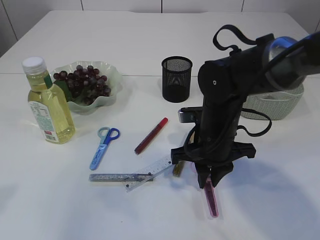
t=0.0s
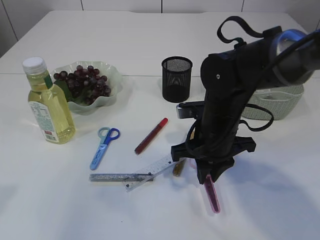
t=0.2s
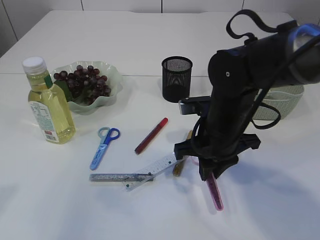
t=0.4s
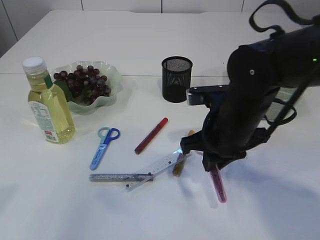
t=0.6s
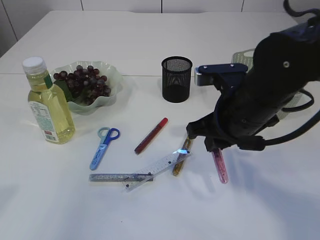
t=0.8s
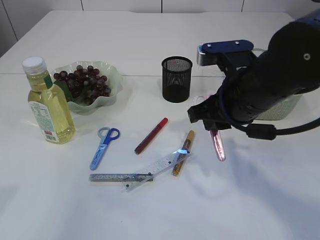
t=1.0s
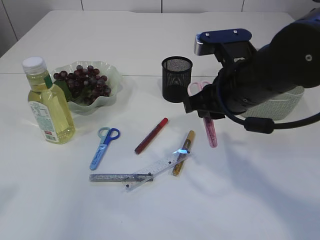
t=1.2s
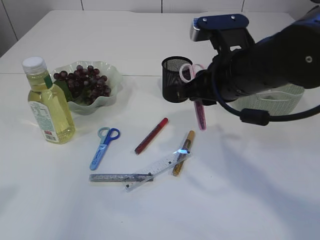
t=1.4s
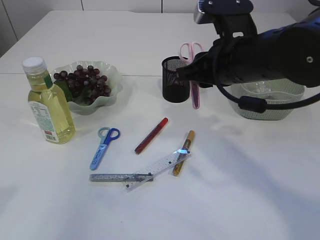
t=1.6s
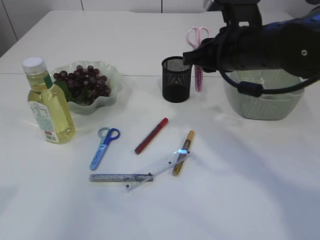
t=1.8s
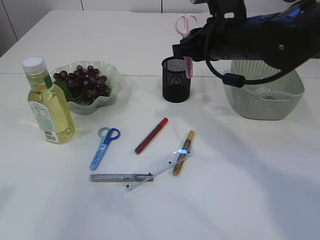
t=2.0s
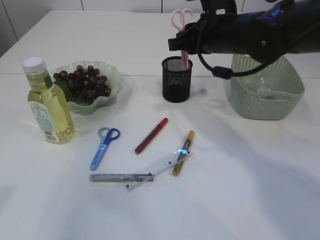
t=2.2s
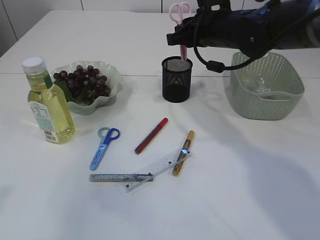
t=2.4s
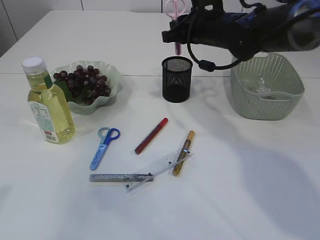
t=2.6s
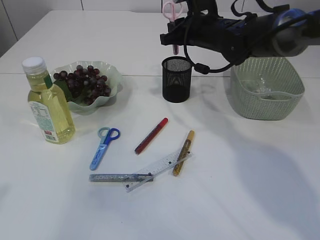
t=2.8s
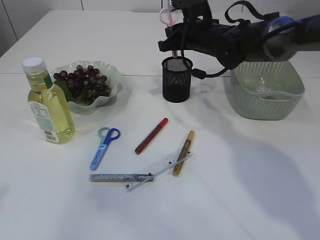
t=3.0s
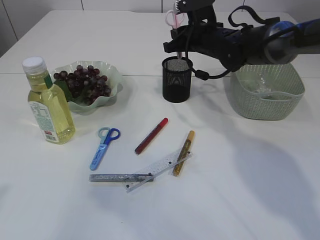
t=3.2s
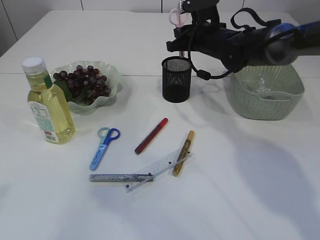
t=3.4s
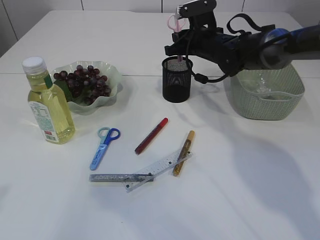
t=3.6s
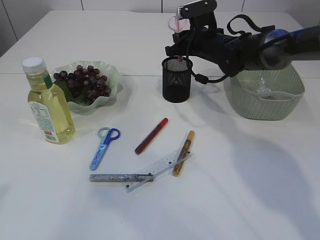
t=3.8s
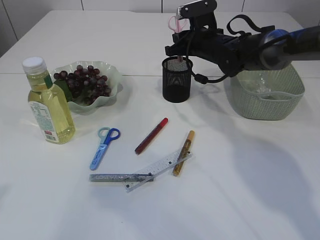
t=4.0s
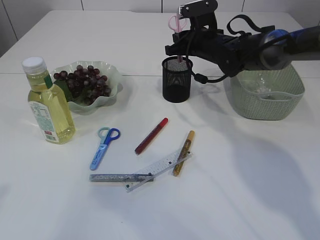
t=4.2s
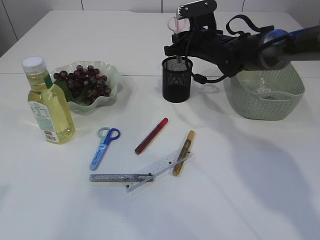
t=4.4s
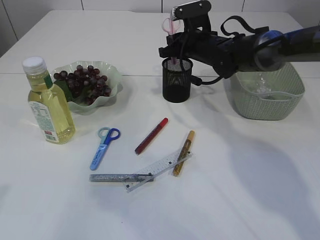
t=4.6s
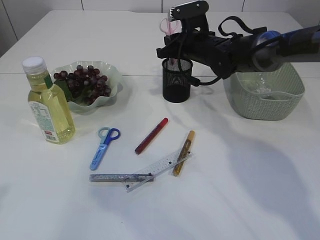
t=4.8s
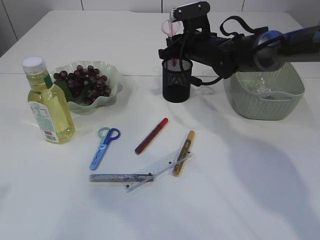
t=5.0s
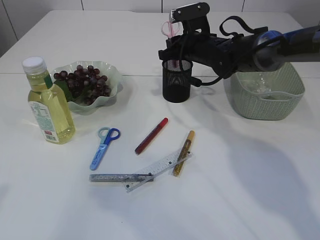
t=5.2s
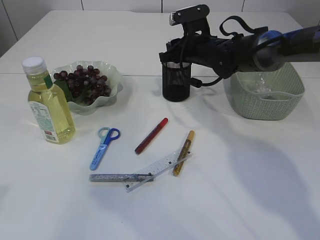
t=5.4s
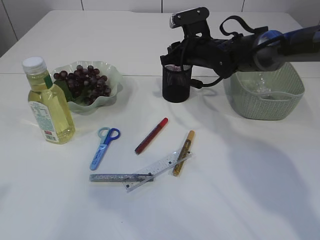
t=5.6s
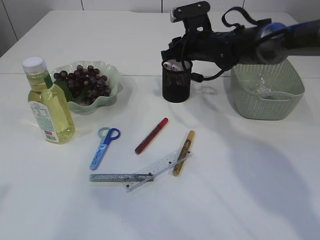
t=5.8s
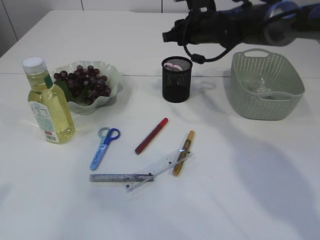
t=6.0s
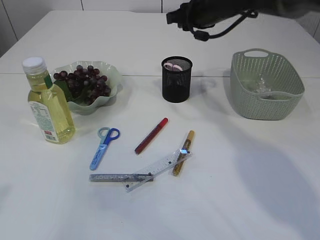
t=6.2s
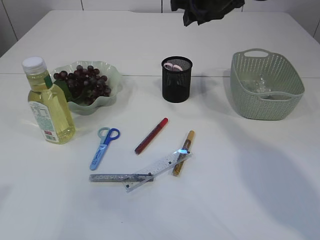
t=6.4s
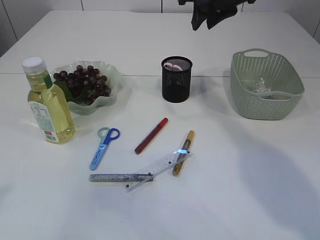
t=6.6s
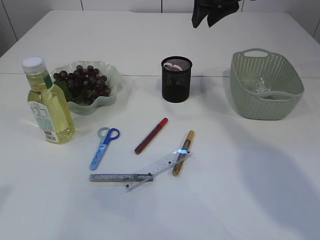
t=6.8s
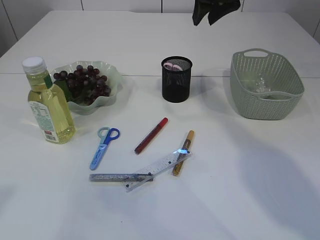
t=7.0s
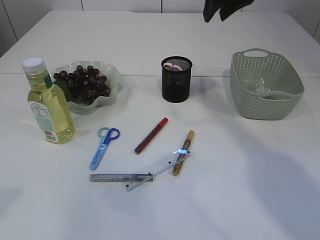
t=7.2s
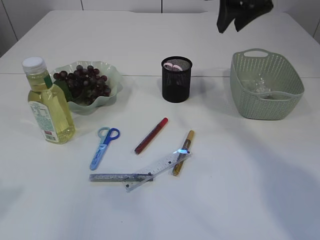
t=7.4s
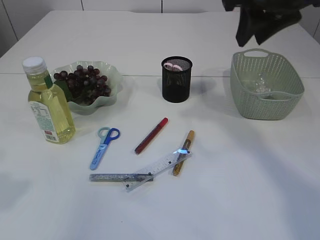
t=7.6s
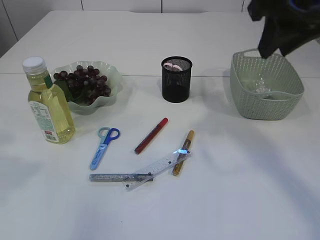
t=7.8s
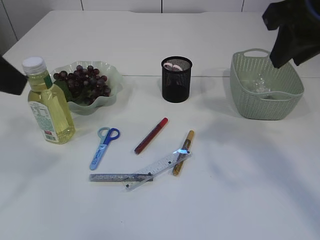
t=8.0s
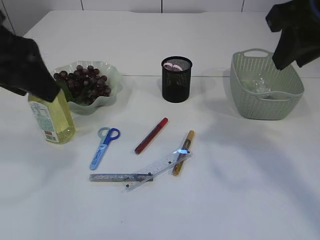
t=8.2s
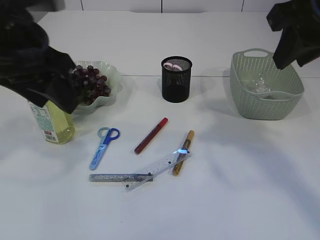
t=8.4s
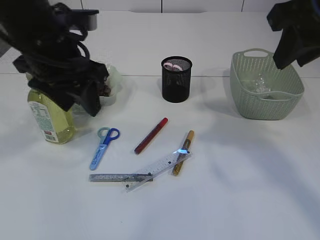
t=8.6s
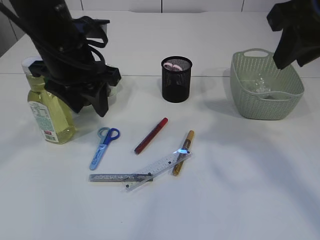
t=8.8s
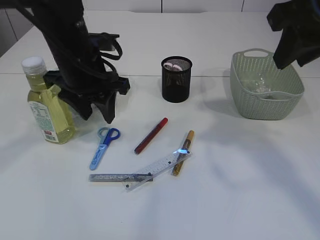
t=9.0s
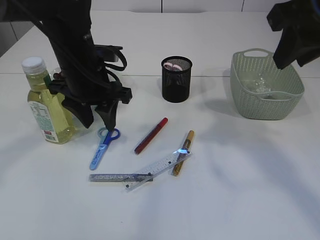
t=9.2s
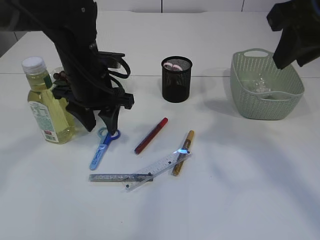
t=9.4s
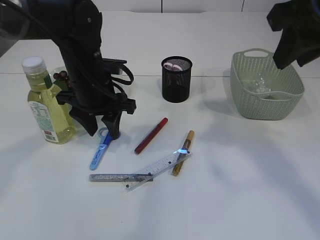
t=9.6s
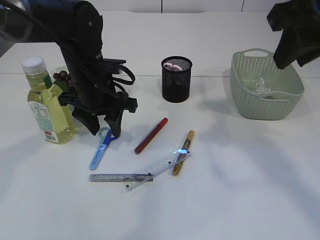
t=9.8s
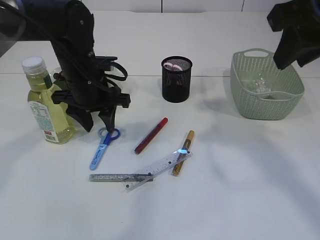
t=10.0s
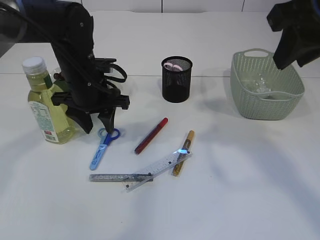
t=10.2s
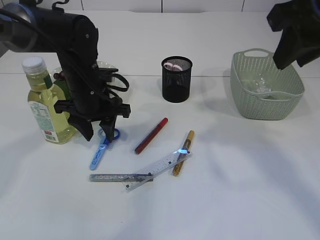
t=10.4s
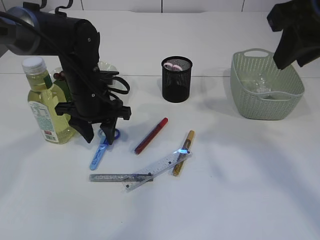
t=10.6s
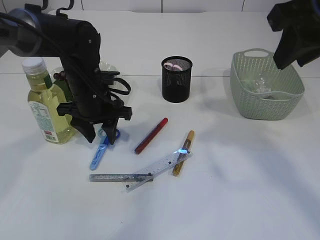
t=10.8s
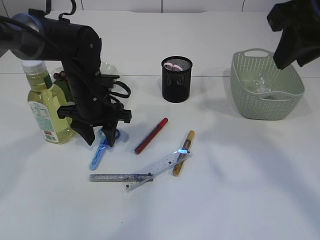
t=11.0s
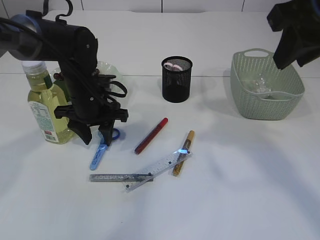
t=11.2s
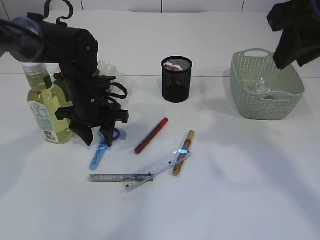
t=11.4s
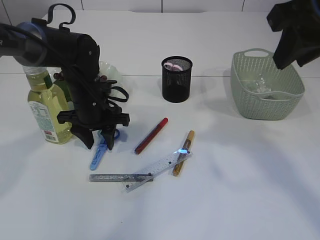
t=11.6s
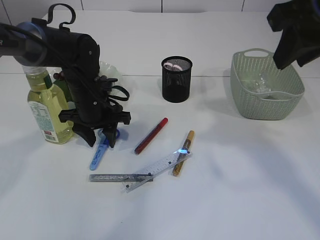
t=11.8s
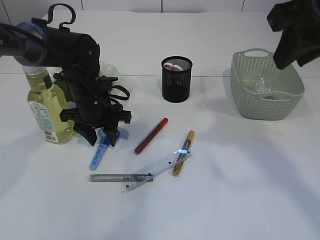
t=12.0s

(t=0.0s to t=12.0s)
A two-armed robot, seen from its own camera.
Step, t=1.0s - t=6.0s: Place the pink scissors into the pen holder.
t=0.0s - t=1.6s: The right gripper shifts roughly 10 cm upward.
t=1.6s - t=3.0s: The right gripper shifts approximately 15 cm forward.
t=3.0s - t=6.0s: The grippers stay close to where they were, moving slightly.
t=6.0s - t=7.6s: The right gripper travels backward and upward by approximately 20 cm.
t=7.6s - t=9.0s: The right gripper is displaced backward by roughly 10 cm; the left gripper shifts approximately 25 cm forward, to the right and downward.
t=9.0s - t=10.4s: The left gripper shifts some 10 cm downward.
t=10.4s - t=12.0s: The grippers make only small movements.

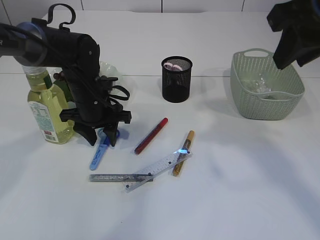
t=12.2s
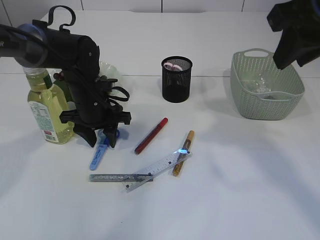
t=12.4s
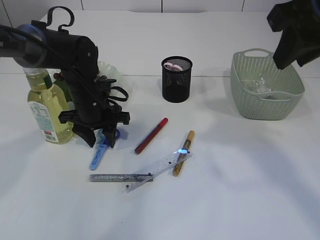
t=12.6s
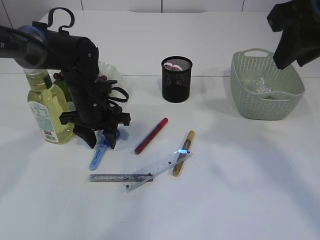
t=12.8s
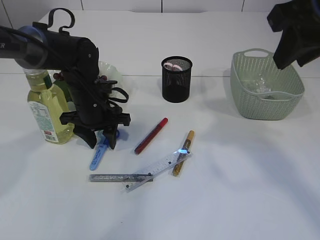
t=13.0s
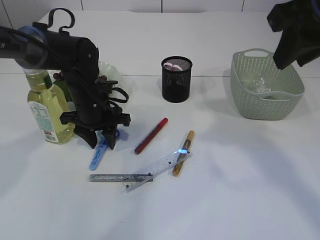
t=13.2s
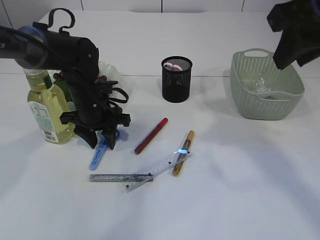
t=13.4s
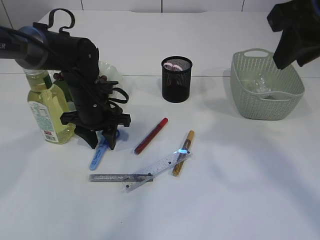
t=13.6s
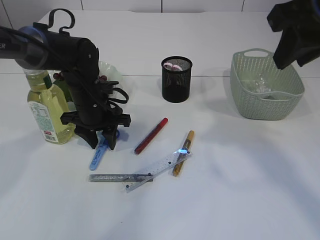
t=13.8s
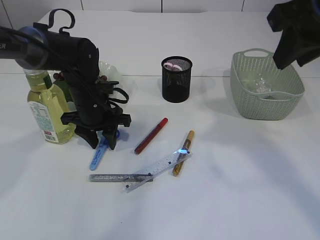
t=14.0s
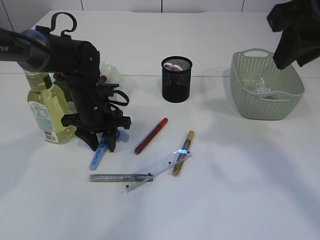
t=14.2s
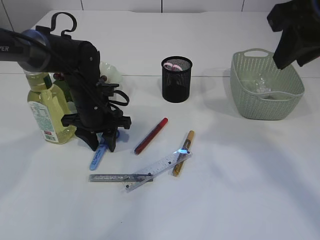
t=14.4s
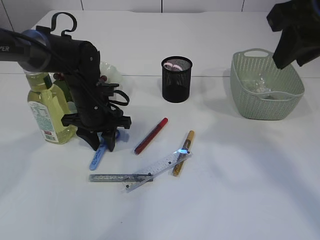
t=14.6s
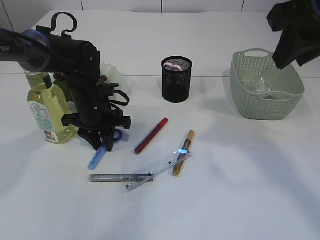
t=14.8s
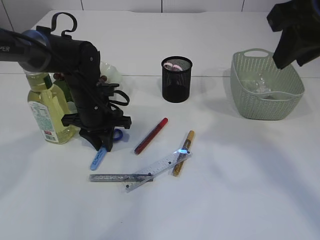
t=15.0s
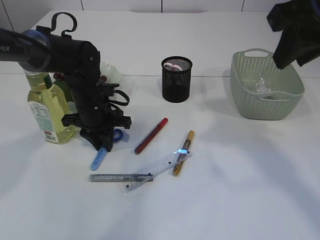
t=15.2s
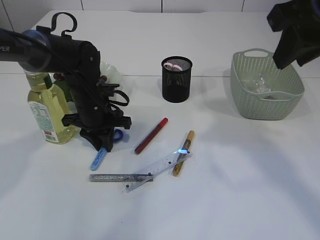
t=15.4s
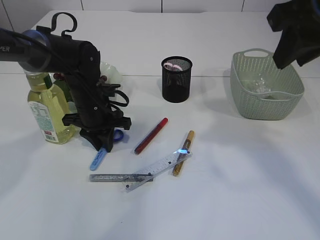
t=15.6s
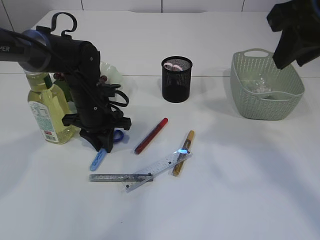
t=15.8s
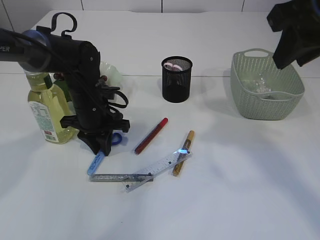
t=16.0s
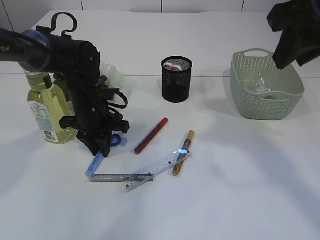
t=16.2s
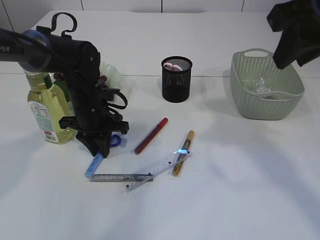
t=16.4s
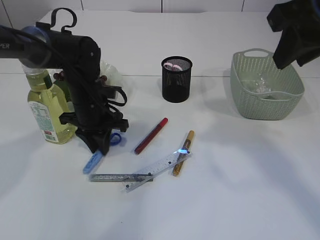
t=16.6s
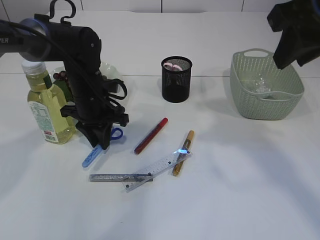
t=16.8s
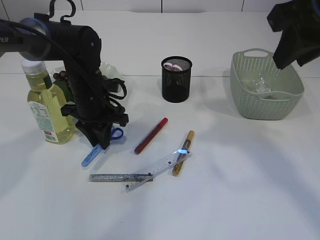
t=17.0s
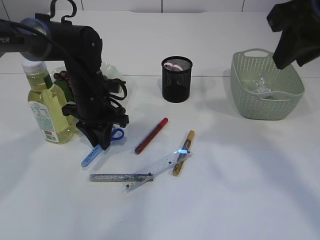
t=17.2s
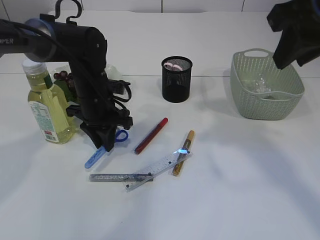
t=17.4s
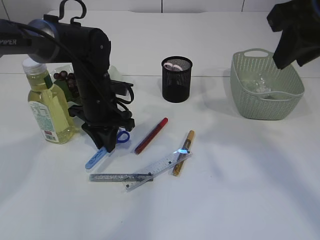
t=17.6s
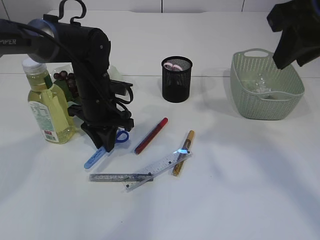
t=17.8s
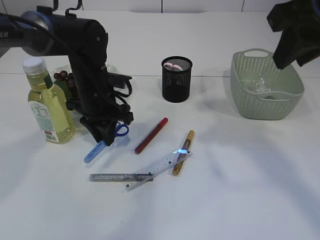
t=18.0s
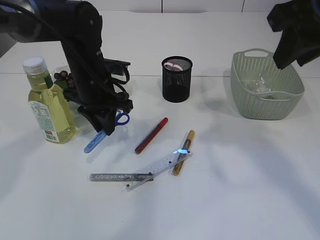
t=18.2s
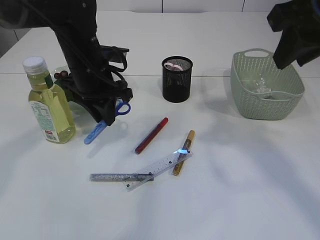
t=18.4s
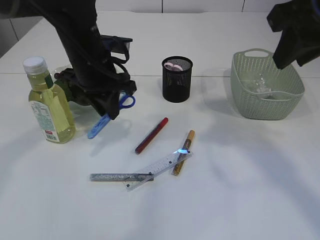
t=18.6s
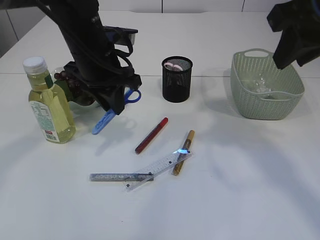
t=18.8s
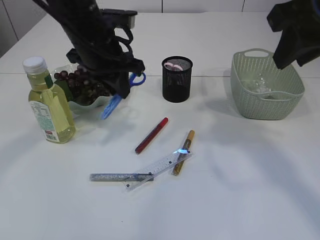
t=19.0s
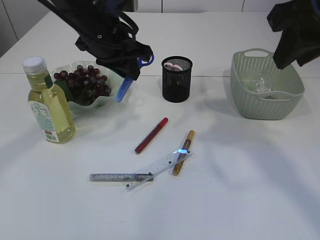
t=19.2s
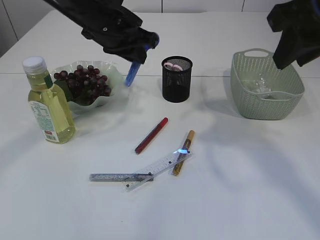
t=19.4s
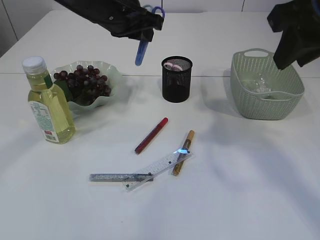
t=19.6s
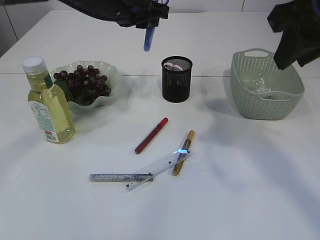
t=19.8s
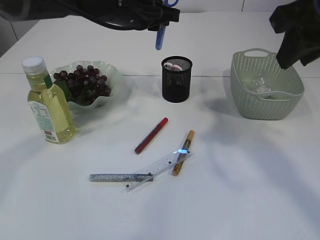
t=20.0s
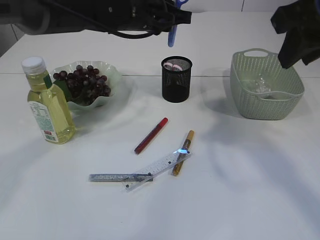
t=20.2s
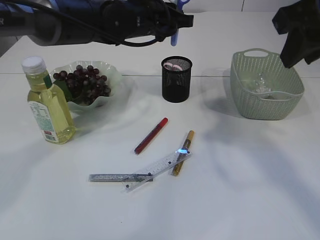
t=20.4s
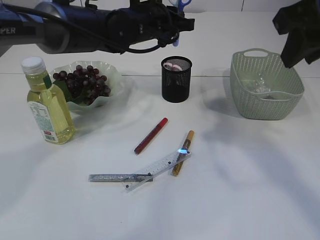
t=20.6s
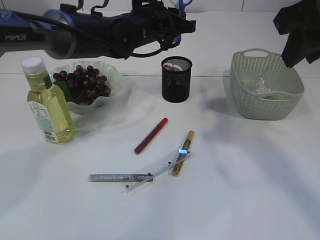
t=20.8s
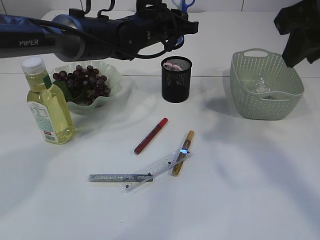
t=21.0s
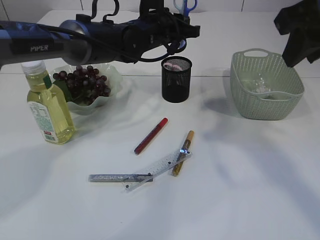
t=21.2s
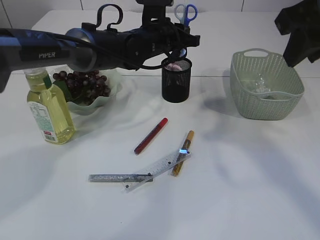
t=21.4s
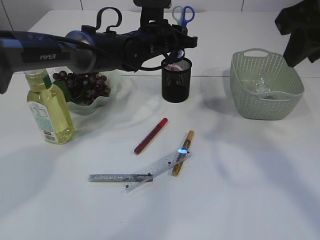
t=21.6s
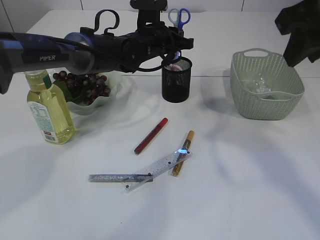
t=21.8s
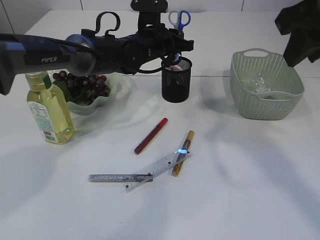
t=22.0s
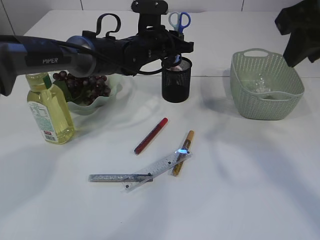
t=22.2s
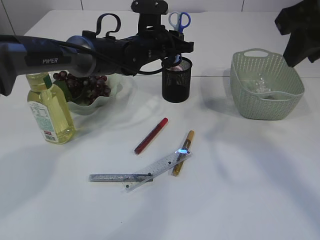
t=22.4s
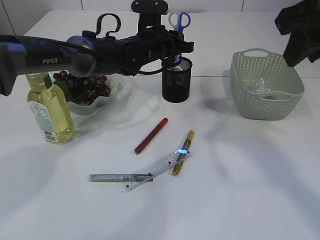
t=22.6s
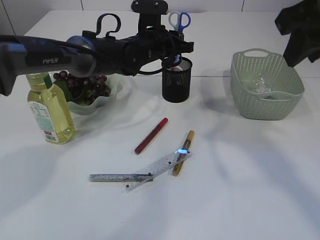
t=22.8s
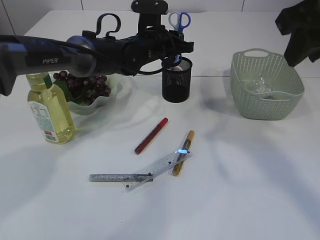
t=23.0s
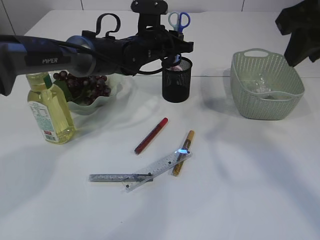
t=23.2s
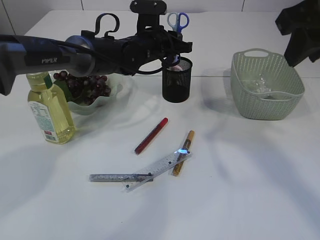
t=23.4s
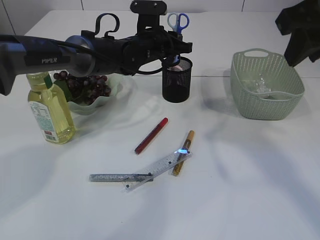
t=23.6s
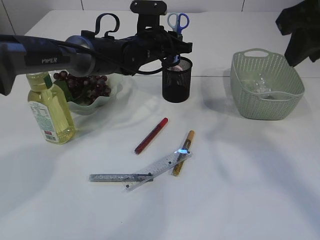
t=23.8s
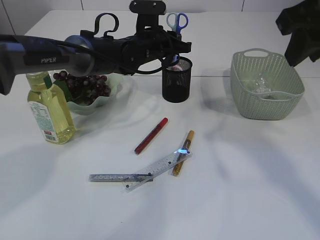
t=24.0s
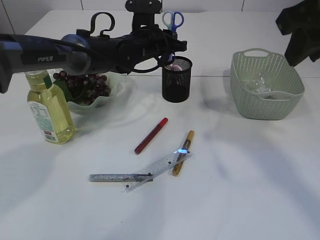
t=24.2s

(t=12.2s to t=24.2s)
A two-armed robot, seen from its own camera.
Step, t=12.2s - t=18.8s: pick up the blue scissors.
t=12.2s - t=13.8s: Both grippers stay put.
t=13.8s - t=15.2s: Both grippers stay about where they are.
t=15.2s - t=16.6s: The grippers make only small movements.
t=16.6s - t=18.2s: The left gripper travels upward by about 5 cm.
t=18.2s - t=19.8s: The left gripper shifts roughly 10 cm upward.
t=19.8s - t=21.2s: The left gripper heads downward and to the right, covering about 10 cm.
t=21.2s - t=22.6s: There are only small adjustments of the grippers.
t=22.6s - t=24.2s: Both grippers stay put.
